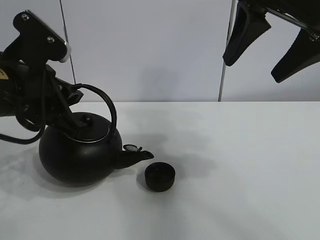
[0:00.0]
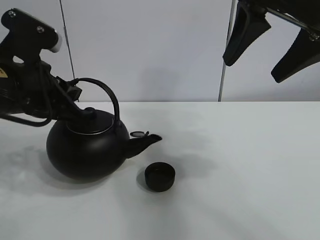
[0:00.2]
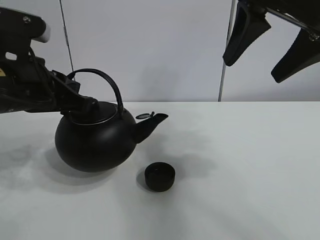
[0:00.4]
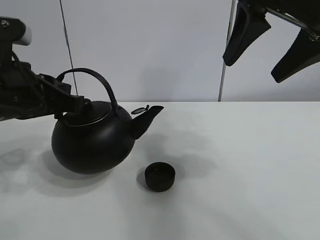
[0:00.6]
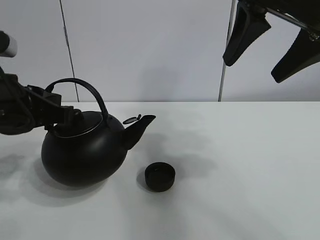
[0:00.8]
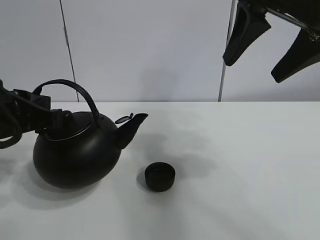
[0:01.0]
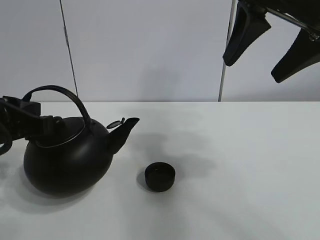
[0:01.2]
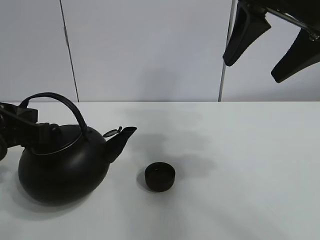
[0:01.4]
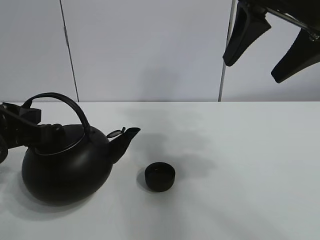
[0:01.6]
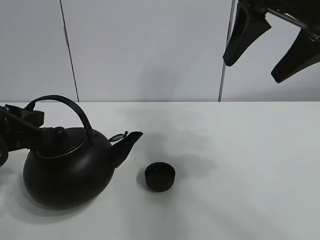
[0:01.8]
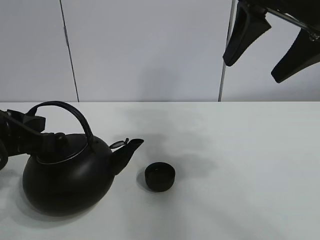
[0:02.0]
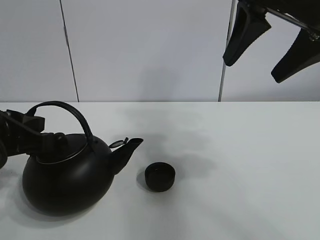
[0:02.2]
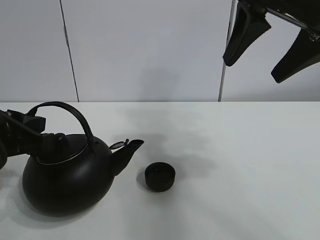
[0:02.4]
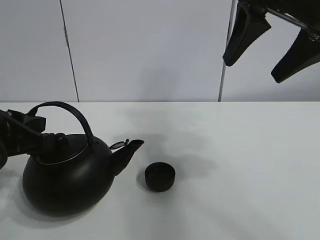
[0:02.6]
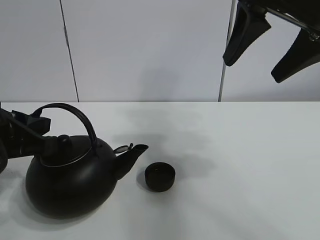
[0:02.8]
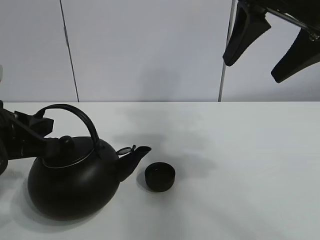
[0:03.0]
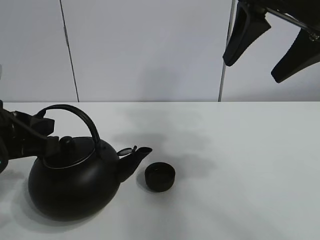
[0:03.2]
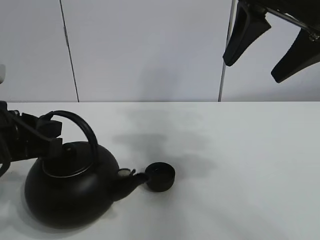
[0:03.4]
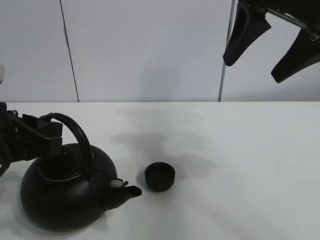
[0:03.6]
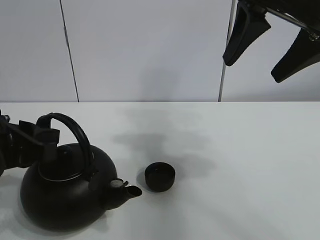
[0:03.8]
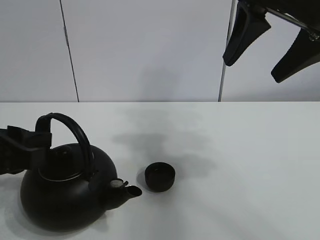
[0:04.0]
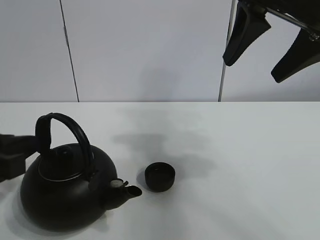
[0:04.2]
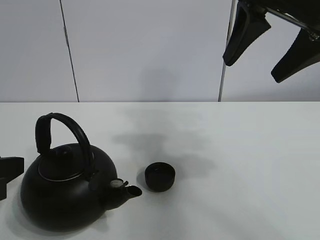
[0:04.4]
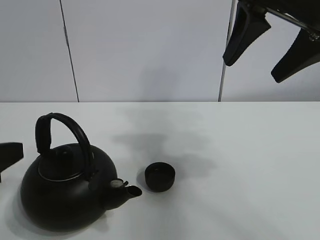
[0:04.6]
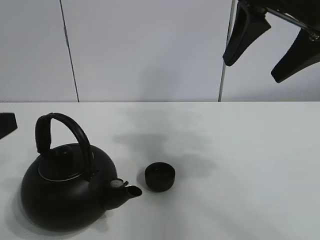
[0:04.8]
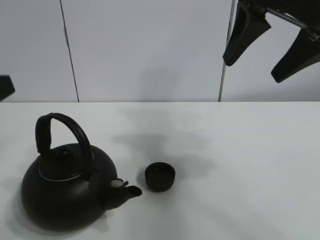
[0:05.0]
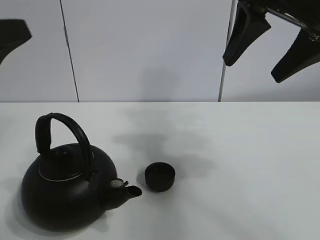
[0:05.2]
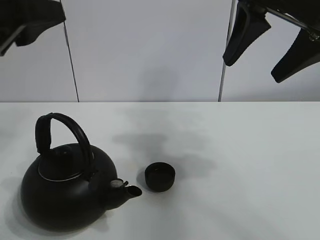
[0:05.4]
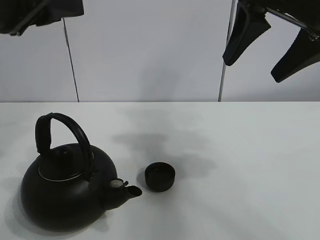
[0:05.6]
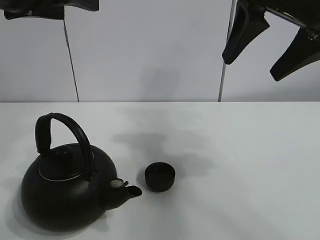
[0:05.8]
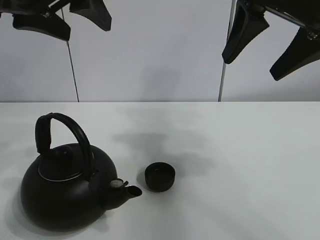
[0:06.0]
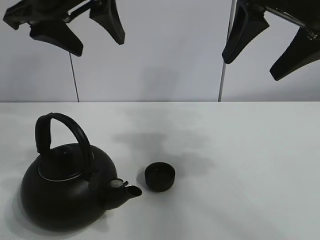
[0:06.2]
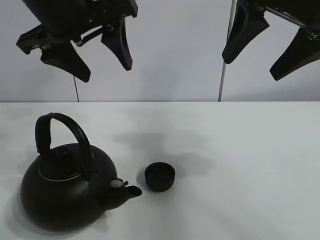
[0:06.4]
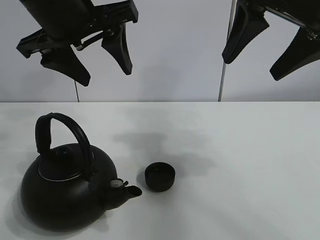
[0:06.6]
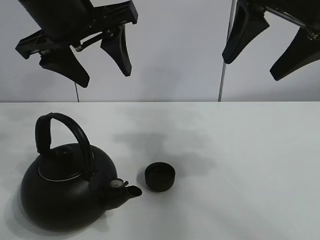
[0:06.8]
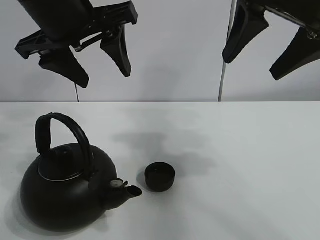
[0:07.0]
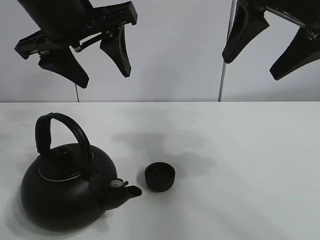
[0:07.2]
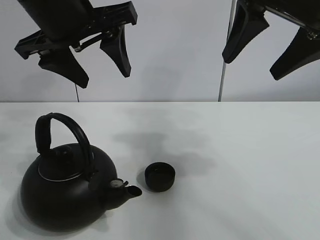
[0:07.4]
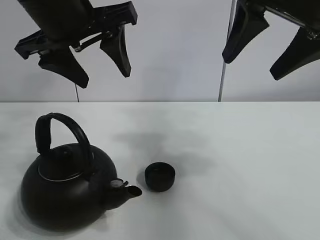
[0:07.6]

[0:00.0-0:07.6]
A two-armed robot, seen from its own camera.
Task of the whole recording: pour tea into the teacup.
0:00.0 to 0:01.6: The left gripper heads backward, covering about 5 cm.
0:01.6 to 0:03.0: The grippers stay close to where they were, moving slightly.
0:03.0 to 0:04.6: The left gripper goes roughly 5 cm backward, and opens its fingers.
0:04.6 to 0:06.0: The left gripper goes some 25 cm upward, forward and to the right, and opens its fingers.
0:06.0 to 0:07.6: The left gripper changes place by about 5 cm.

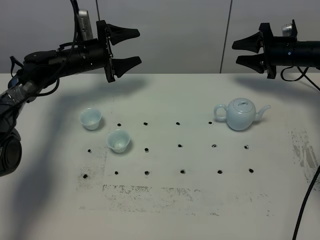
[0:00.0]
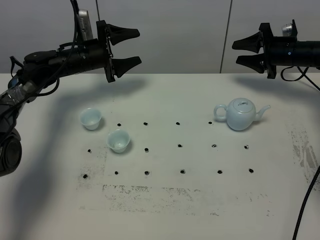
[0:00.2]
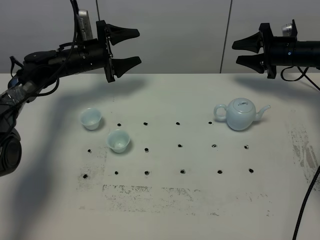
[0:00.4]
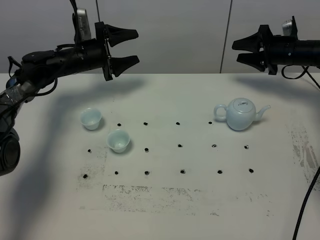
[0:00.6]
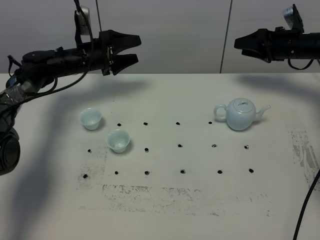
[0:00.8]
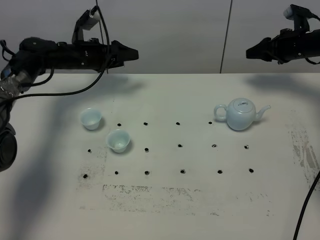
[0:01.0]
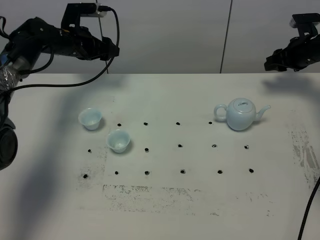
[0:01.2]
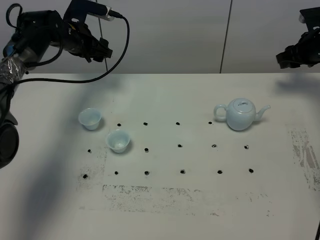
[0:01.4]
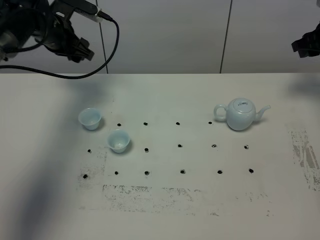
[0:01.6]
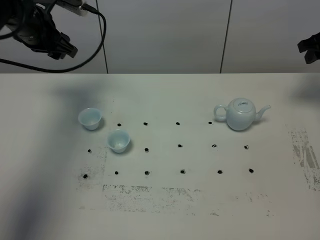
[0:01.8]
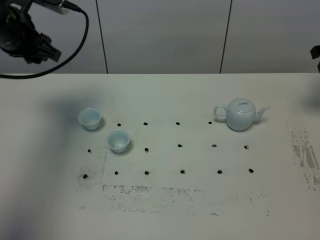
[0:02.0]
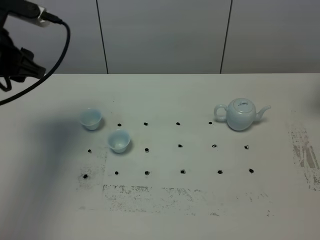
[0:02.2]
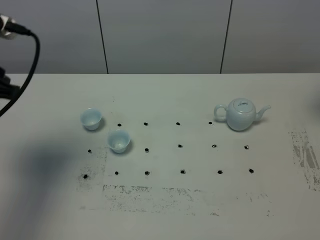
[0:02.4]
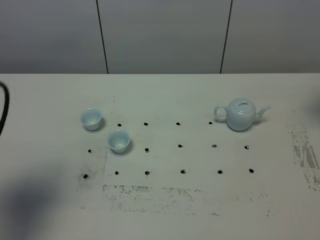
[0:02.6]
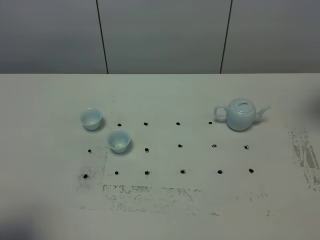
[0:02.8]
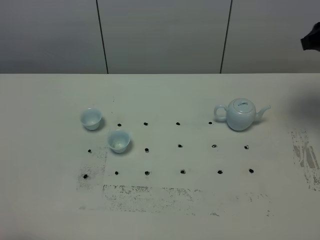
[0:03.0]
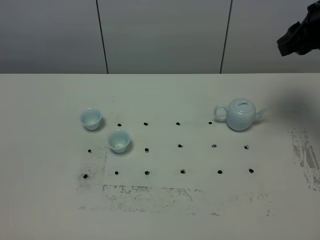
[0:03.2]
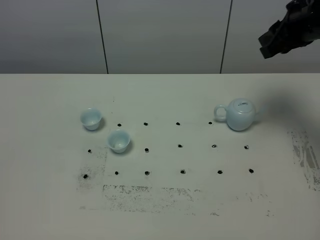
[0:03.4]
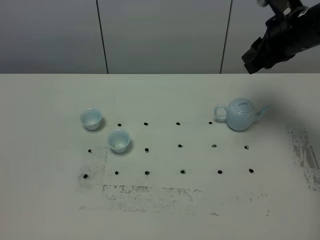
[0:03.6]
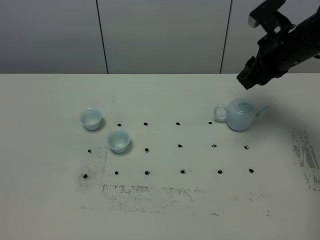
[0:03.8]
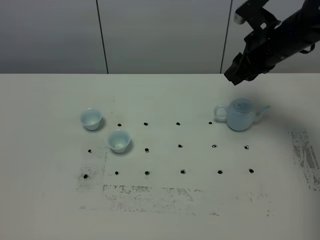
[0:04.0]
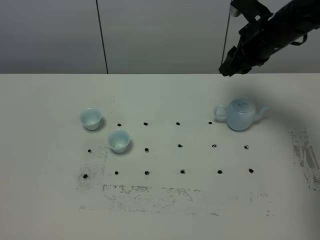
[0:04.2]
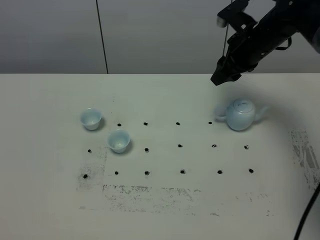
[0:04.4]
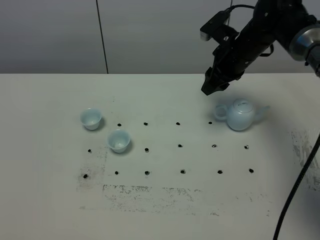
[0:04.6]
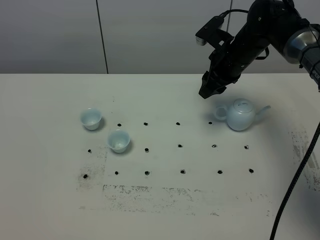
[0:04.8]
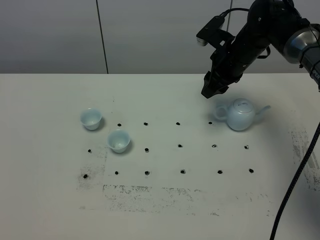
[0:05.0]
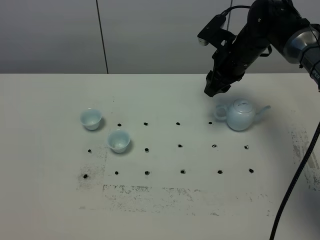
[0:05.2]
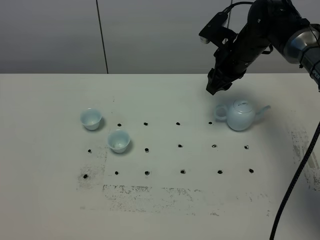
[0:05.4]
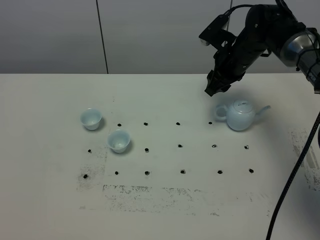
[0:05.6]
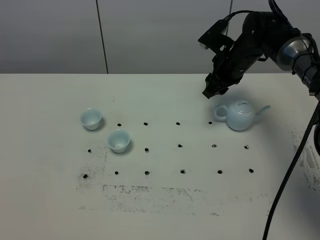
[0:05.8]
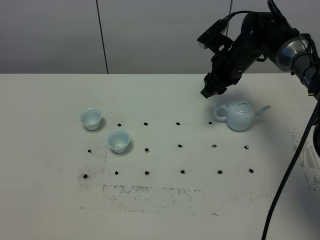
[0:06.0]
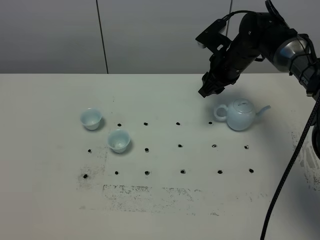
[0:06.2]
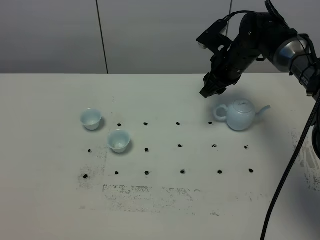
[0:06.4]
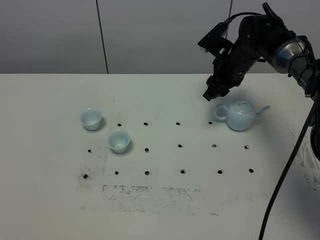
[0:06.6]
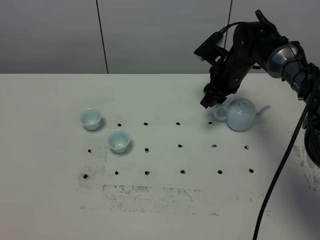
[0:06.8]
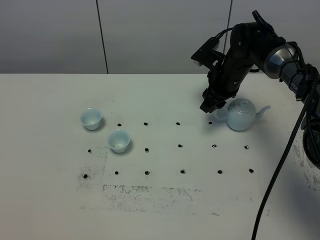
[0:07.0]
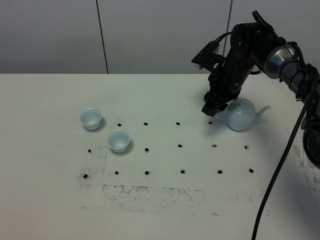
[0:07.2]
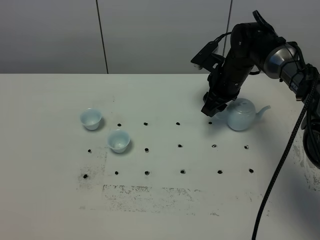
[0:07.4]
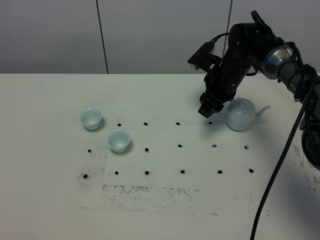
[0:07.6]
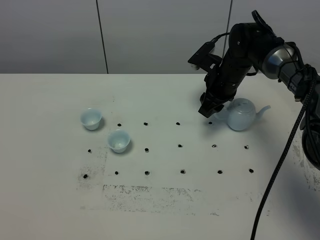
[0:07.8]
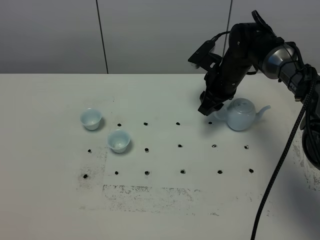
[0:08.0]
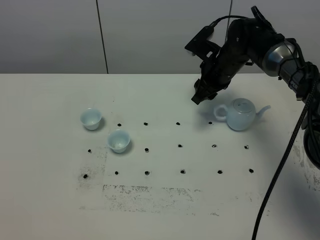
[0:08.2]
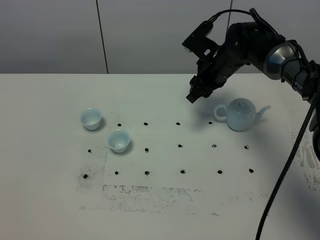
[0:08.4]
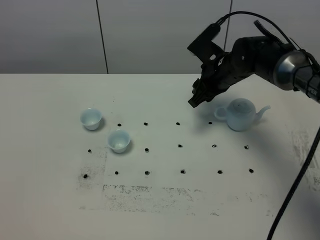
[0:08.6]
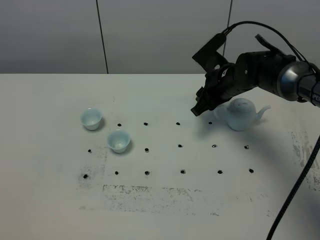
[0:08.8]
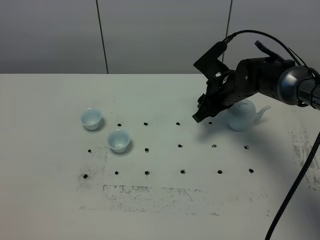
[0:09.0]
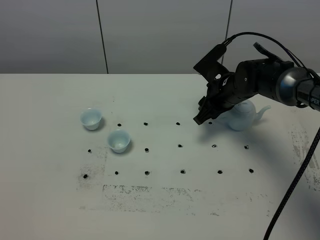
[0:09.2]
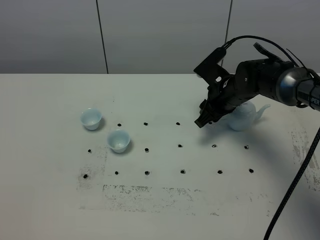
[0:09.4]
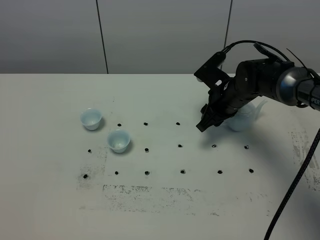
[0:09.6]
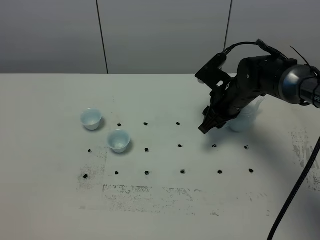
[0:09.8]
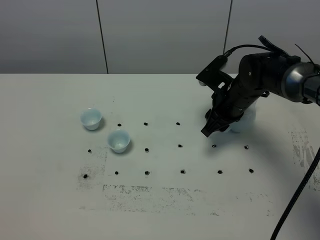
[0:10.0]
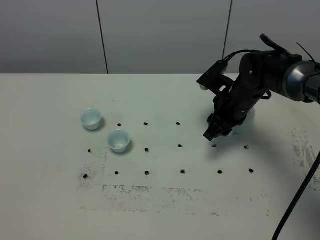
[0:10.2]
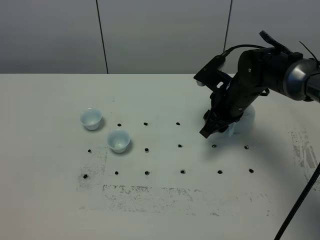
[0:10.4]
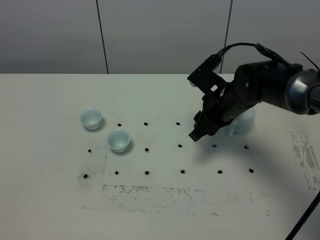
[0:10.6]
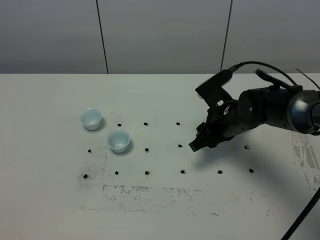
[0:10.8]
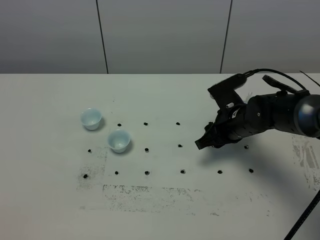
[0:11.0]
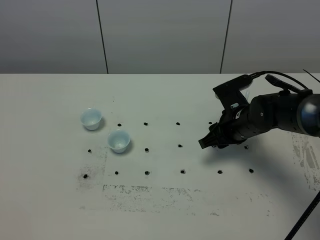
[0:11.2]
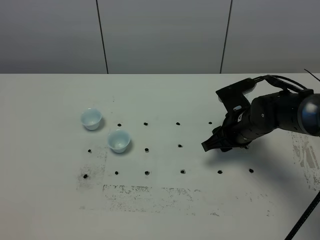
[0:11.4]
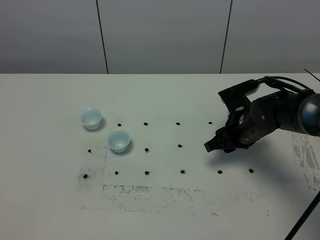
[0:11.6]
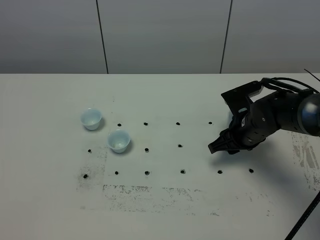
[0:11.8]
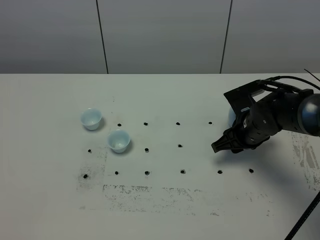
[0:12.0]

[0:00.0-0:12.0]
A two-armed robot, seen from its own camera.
Task of the whole recording: grasp the blue porcelain teapot and pour the tea into the two blue porcelain teacups one by one, put the blue porcelain teapot back in its original place.
0:00.0 to 0:01.6: The left gripper heads upward, covering about 10 cm, and closes its fingers. The right gripper heads upward and to the right, covering some 10 cm.
0:01.6 to 0:03.0: The right gripper heads backward, upward and to the left, covering about 15 cm, while the left gripper is displaced backward by some 50 cm, and closes.
0:03.0 to 0:04.4: The right gripper is displaced to the left, downward and forward by approximately 15 cm.
0:04.4 to 0:06.0: The right gripper shifts approximately 5 cm downward.
0:06.0 to 0:07.6: The grippers move only a little.
0:09.0 to 0:10.4: The grippers stay close to where they were, moving slightly.
0:10.4 to 0:12.0: The right gripper ends up approximately 5 cm from where it was.

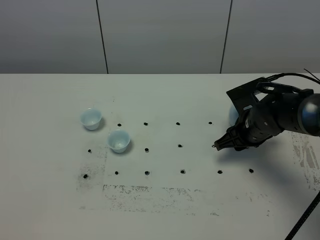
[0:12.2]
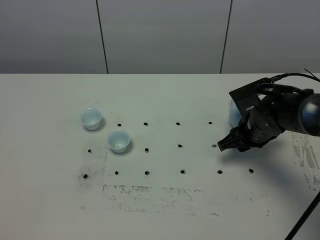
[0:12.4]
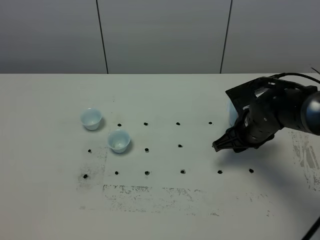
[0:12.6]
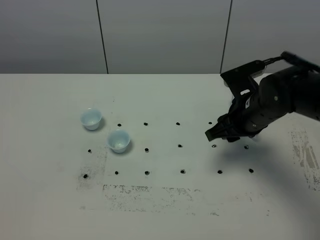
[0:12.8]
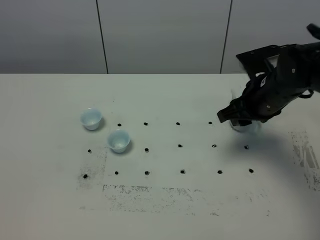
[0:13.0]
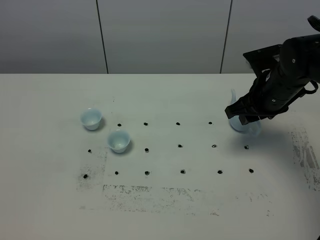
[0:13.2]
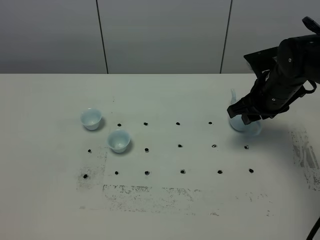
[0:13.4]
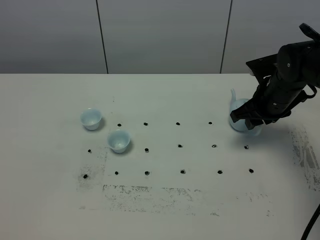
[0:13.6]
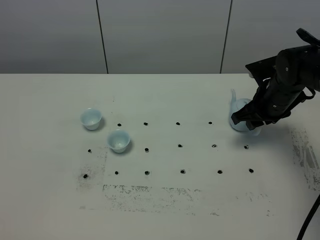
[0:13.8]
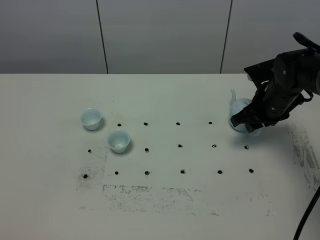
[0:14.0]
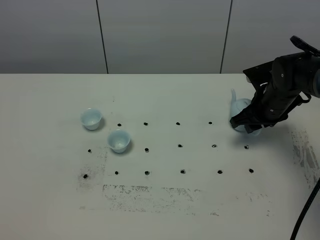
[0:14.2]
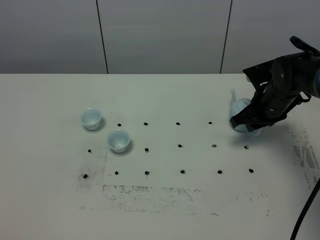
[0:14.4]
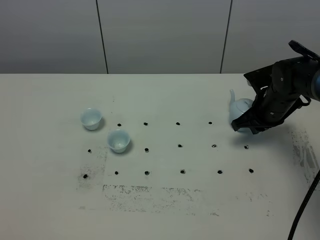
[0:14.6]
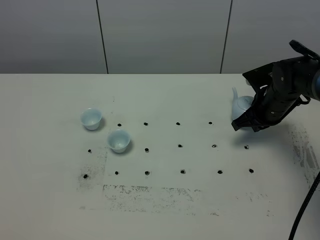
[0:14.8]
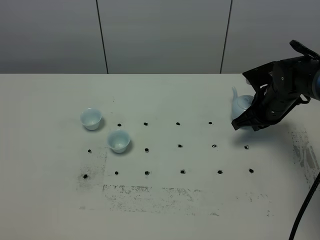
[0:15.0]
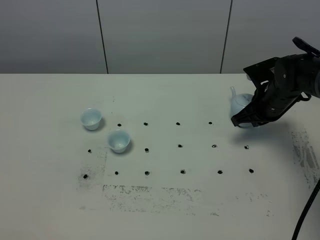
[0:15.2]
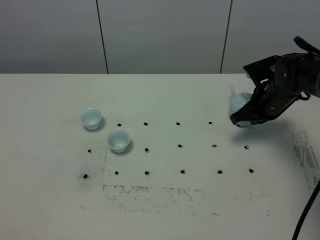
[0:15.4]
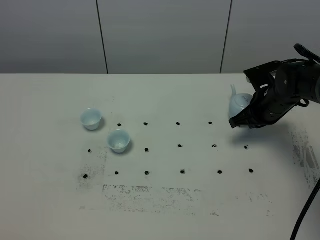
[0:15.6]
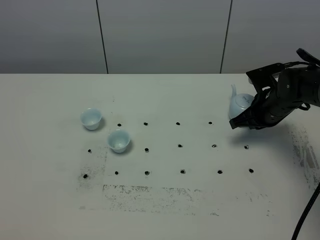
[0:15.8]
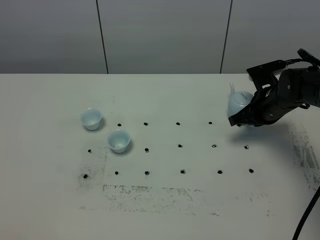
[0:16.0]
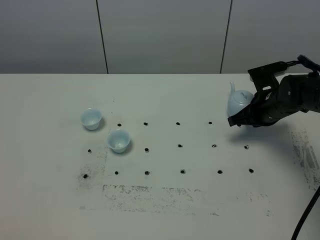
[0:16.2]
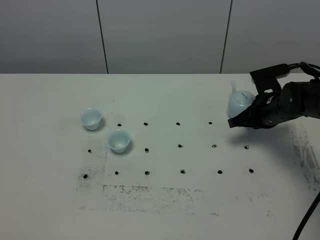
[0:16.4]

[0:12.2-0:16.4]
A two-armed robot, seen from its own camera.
Task of the whole recording: grasp the blue porcelain teapot and pour the tea into the two blue porcelain teacups one by one, put the blue porcelain teapot back in its original place.
0:12.2 to 0:13.6: The right gripper moves upward, approximately 5 cm.
0:13.6 to 0:15.0: The right gripper closes up.
0:15.0 to 0:16.4: The grippers make only small movements.
